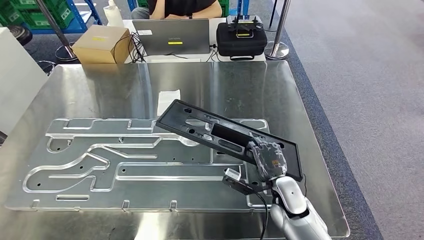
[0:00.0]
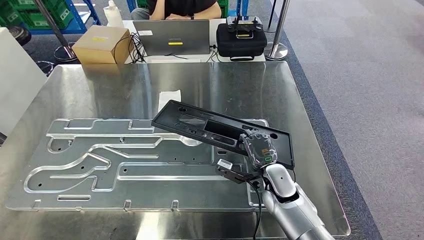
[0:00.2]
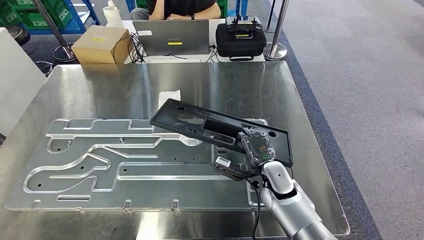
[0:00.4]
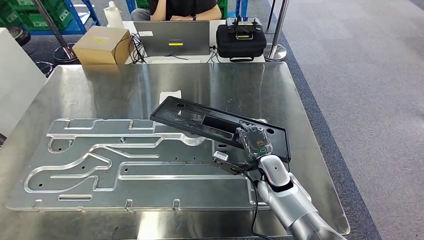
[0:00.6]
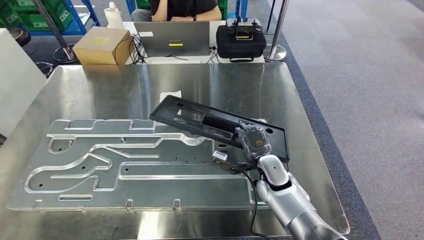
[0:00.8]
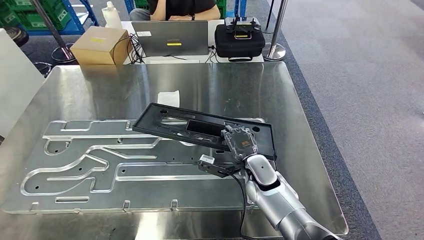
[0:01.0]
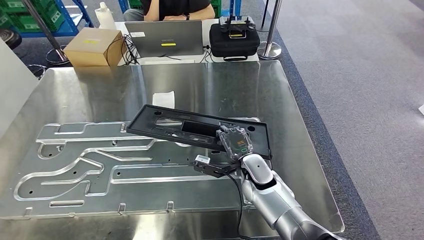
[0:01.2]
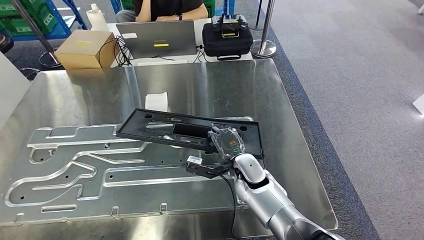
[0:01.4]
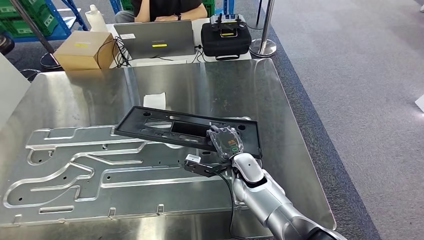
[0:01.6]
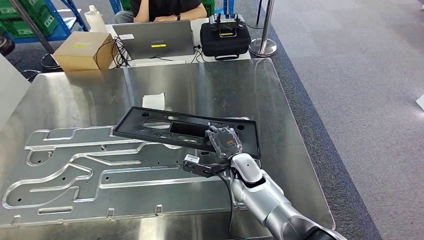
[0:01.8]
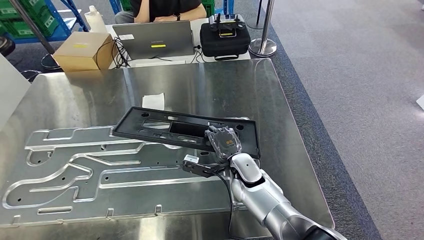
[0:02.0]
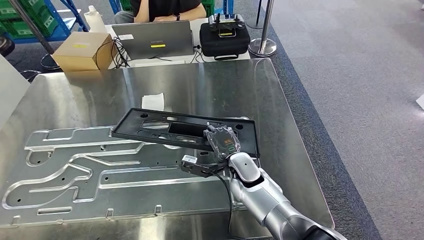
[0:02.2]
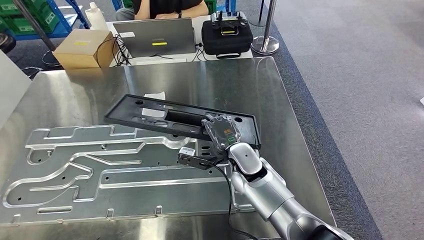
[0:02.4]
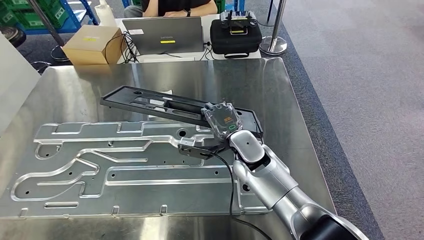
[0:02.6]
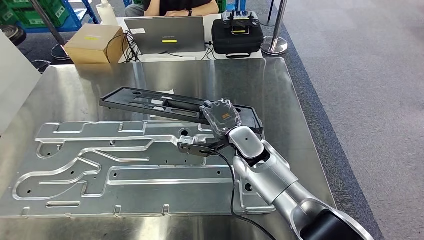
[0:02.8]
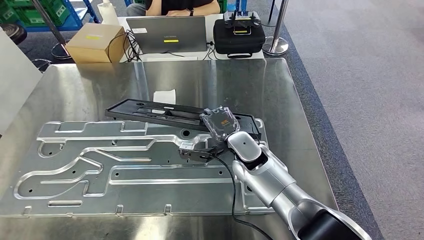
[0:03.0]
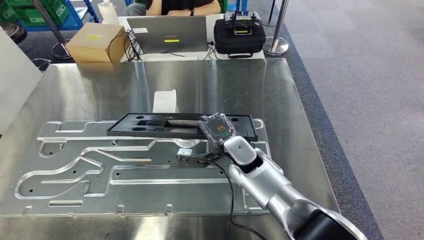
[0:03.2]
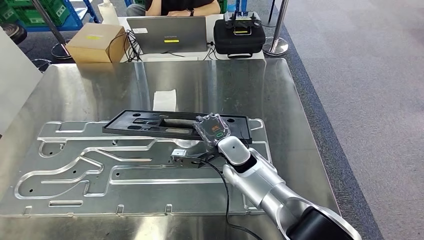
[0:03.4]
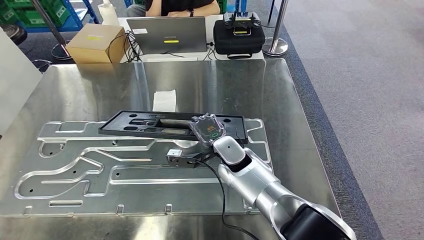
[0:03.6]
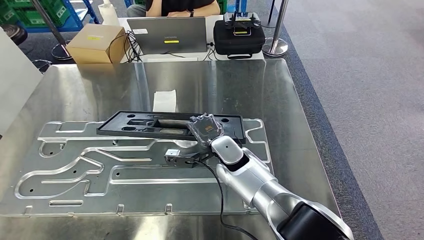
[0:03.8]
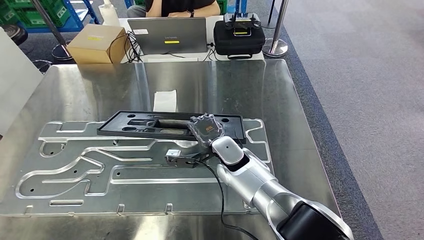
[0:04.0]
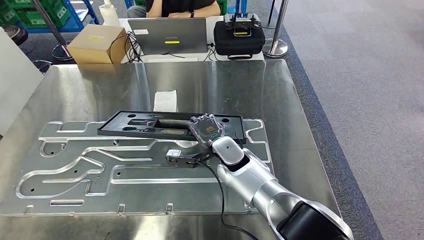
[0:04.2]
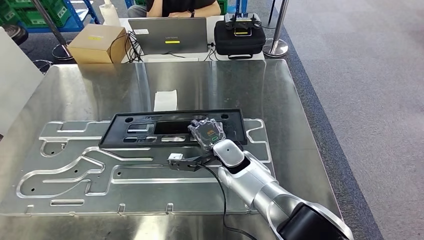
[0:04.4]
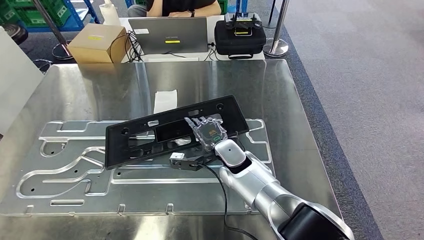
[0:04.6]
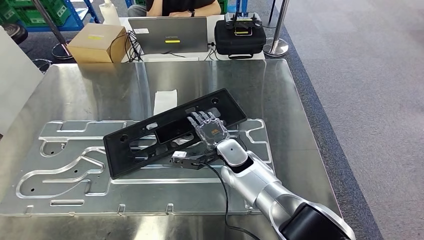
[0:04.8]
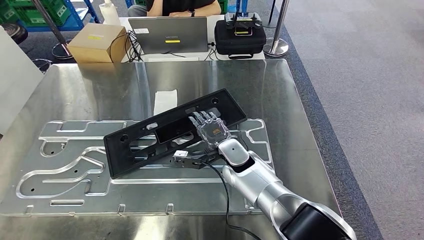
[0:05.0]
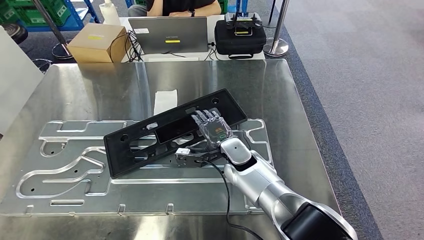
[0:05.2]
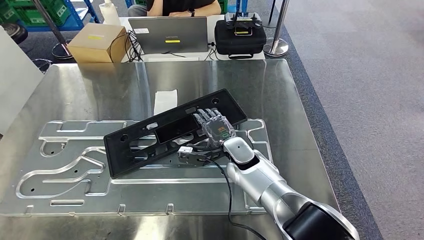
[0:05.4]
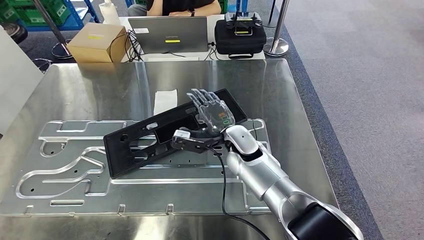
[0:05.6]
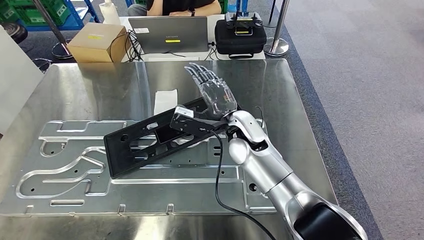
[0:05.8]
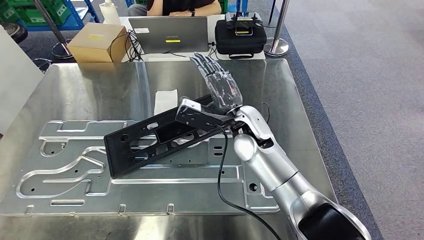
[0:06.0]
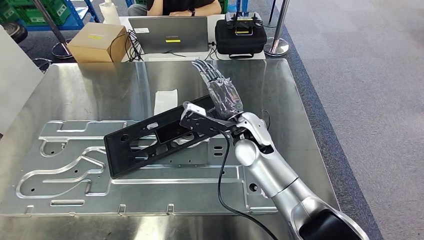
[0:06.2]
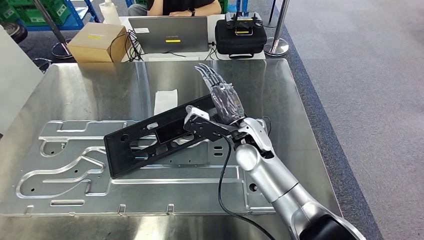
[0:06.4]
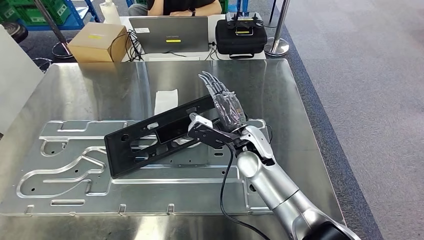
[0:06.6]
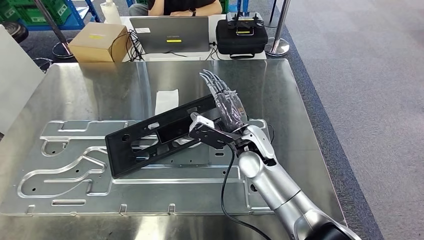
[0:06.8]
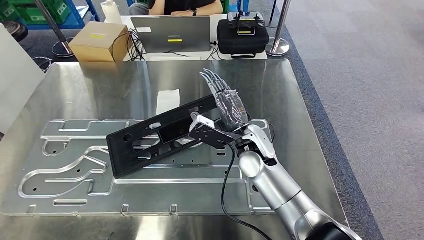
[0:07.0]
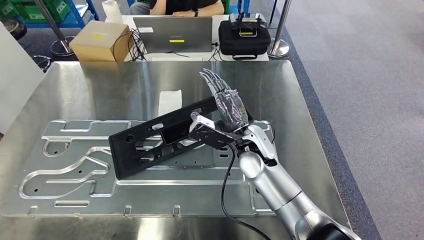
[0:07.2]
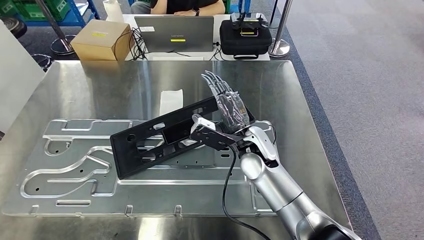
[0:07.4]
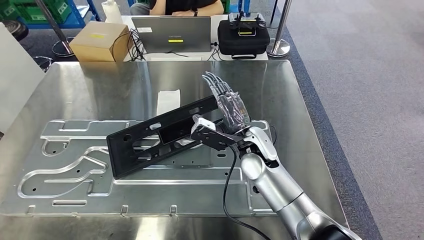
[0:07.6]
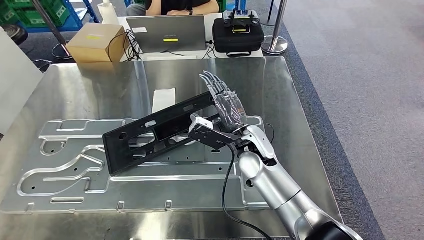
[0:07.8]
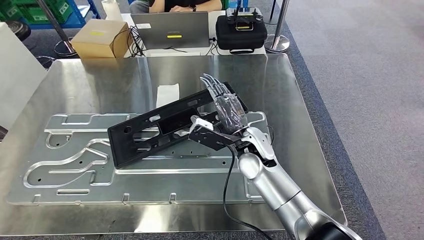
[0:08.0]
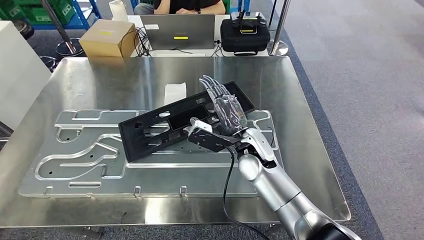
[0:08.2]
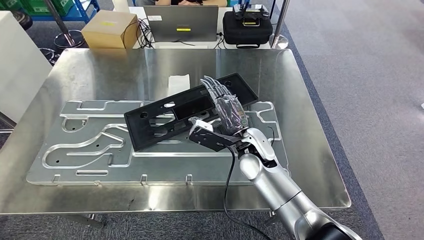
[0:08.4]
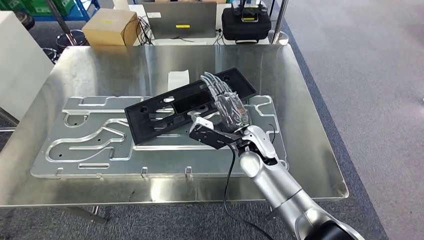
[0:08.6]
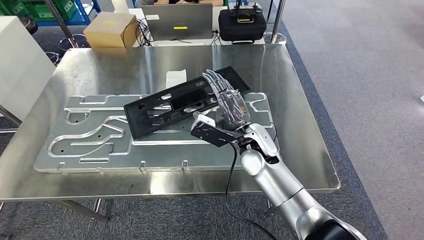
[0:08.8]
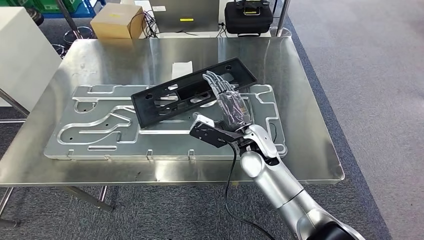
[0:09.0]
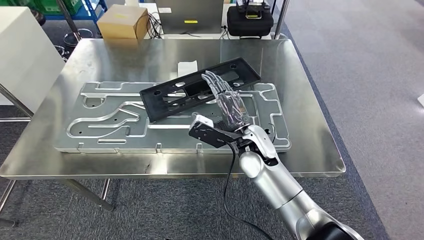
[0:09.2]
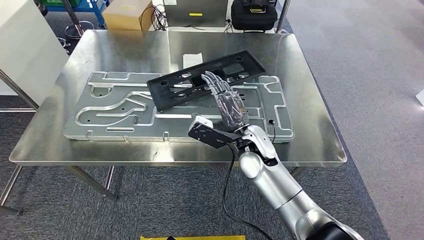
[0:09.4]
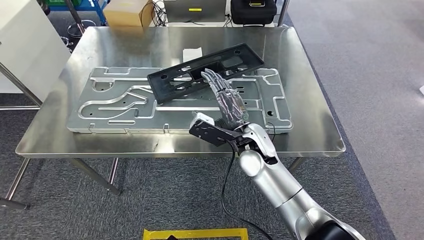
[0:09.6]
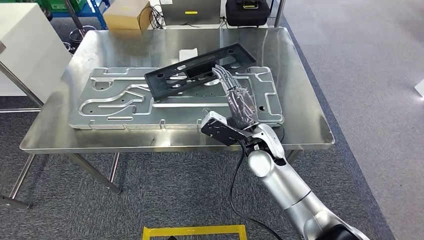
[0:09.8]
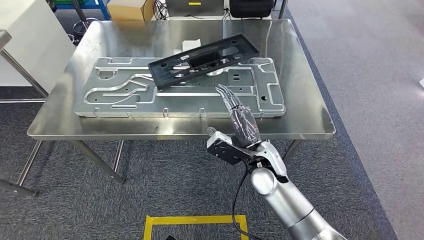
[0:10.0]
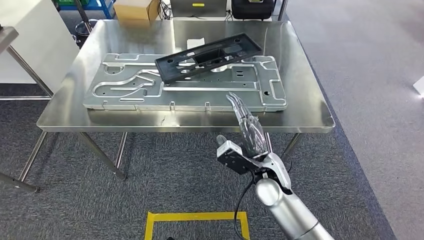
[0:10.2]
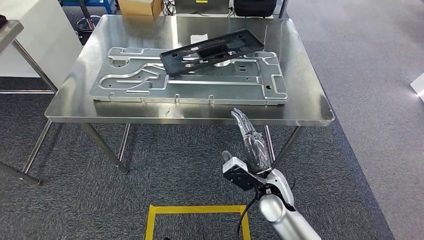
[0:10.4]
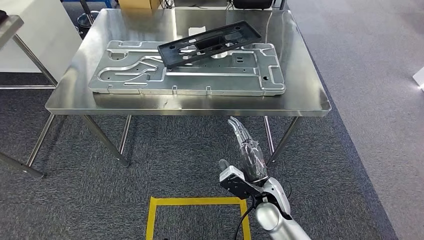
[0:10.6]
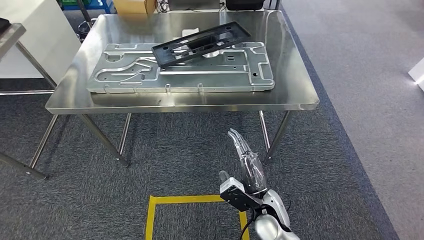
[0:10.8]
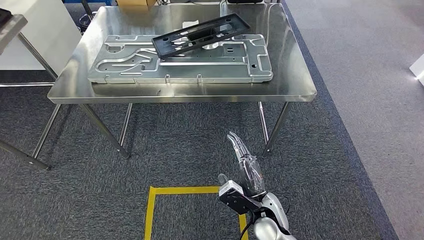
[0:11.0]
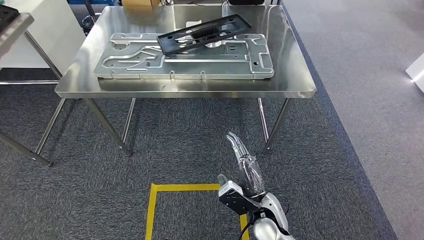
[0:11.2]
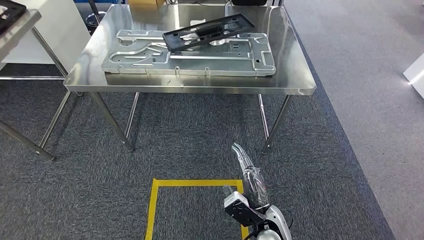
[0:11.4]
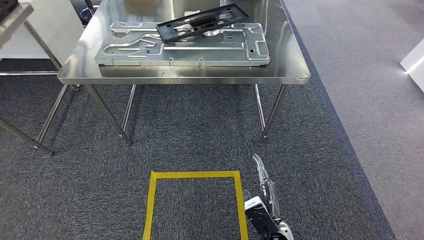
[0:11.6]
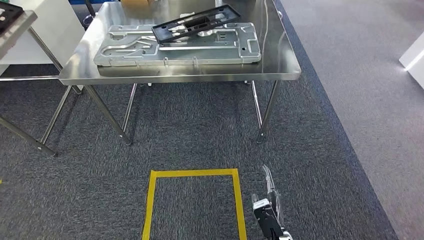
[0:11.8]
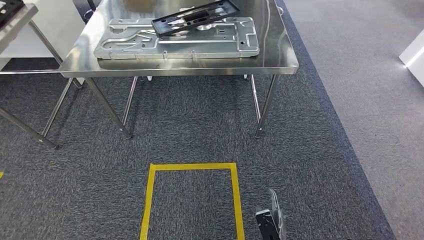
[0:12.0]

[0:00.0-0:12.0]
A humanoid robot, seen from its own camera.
Step, 0:00.0 to 0:10.8: Insert the large material into the corresponding slot on the workbench.
0:03.0 to 0:04.4: The hands make only small movements.
0:04.4 to 0:06.0: The right hand is displaced upward by approximately 10 cm.
0:06.0 to 0:07.6: The right hand moves some 5 cm.

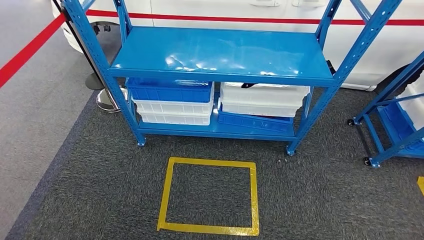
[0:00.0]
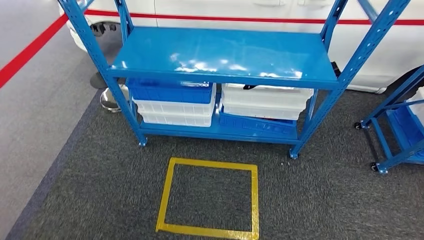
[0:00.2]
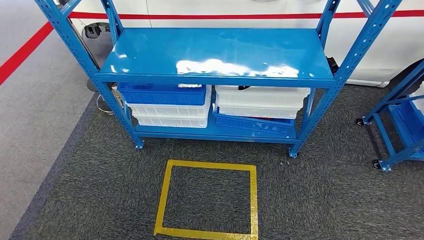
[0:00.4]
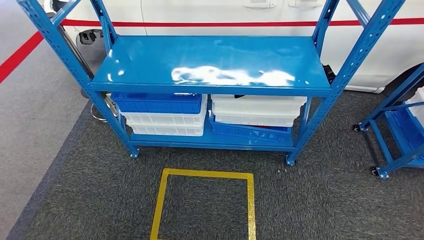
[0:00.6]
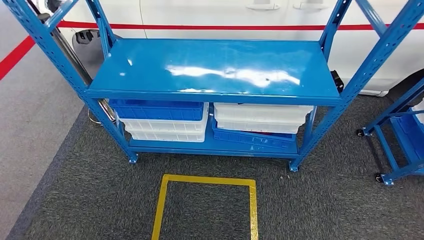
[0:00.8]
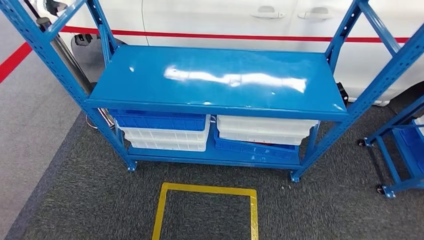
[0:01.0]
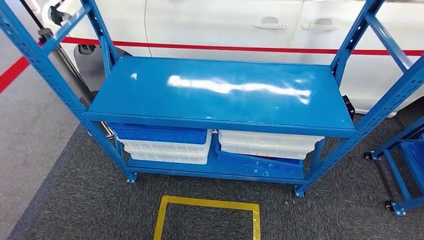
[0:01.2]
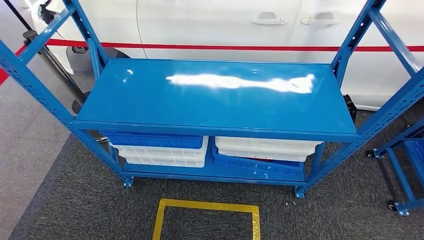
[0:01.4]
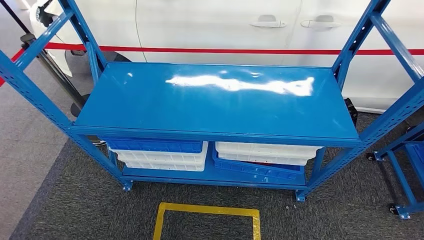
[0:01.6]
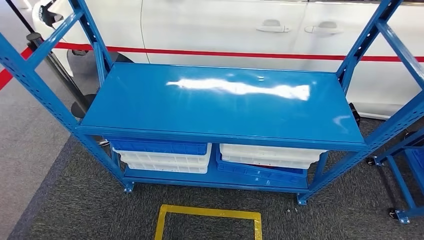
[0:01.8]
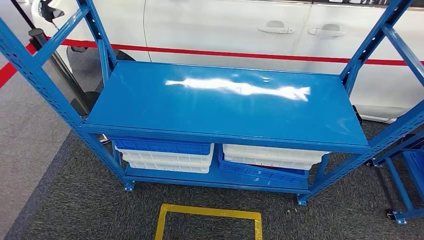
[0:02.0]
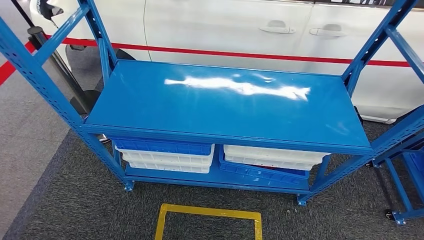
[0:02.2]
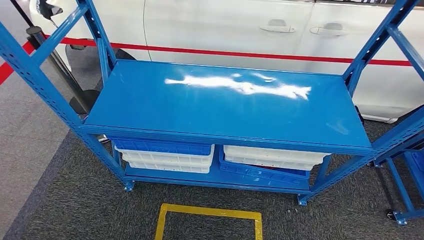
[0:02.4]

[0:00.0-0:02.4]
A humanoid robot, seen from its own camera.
Step, 0:00.0 to 0:02.4: Move to the initial position of the shelf.
